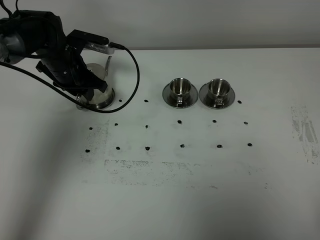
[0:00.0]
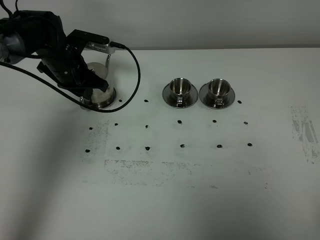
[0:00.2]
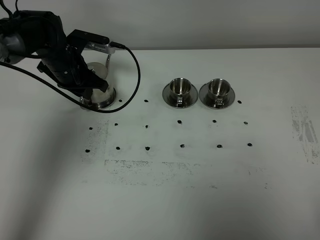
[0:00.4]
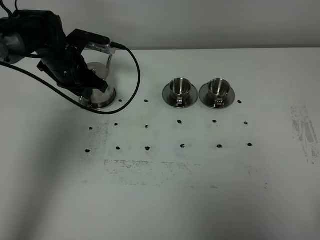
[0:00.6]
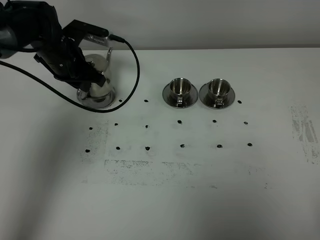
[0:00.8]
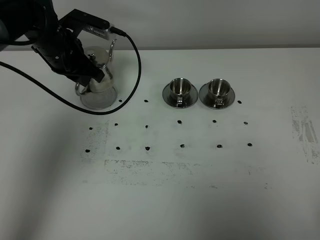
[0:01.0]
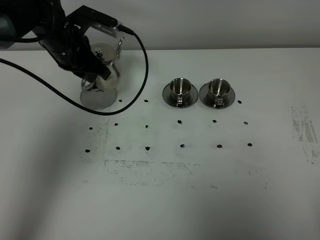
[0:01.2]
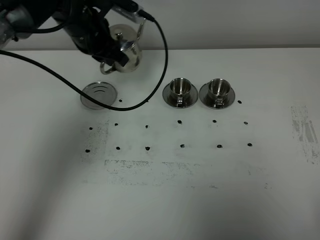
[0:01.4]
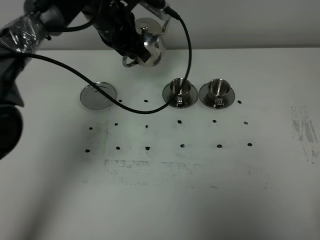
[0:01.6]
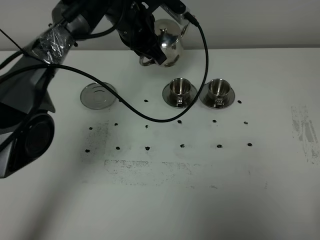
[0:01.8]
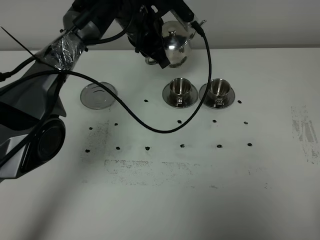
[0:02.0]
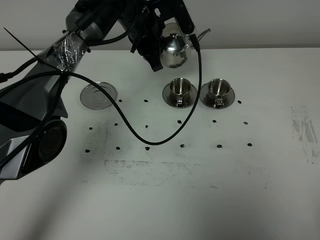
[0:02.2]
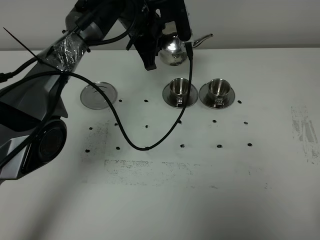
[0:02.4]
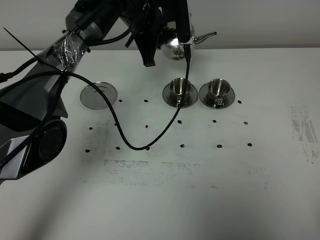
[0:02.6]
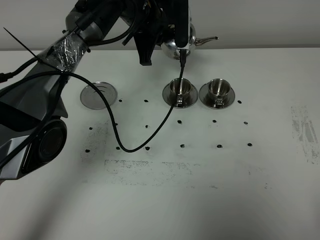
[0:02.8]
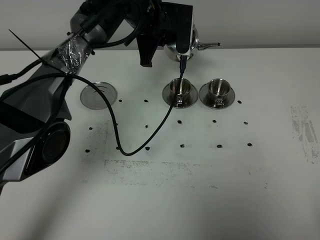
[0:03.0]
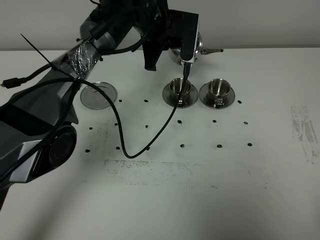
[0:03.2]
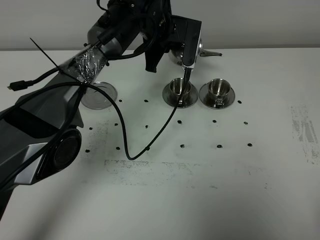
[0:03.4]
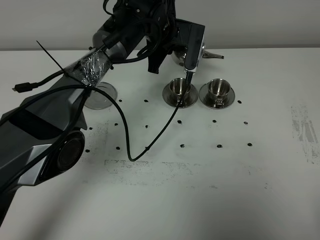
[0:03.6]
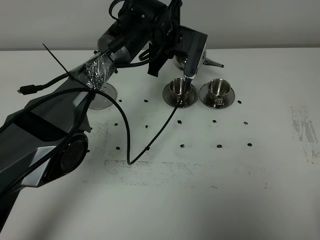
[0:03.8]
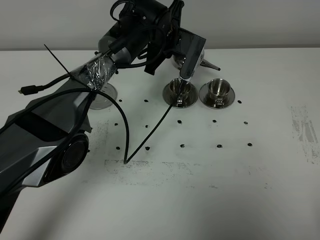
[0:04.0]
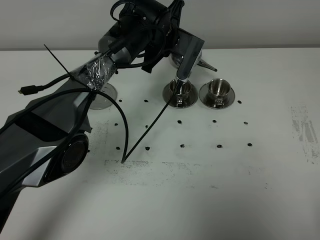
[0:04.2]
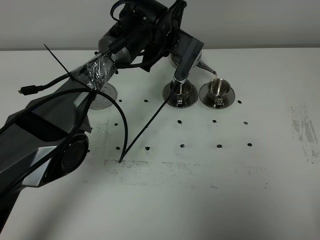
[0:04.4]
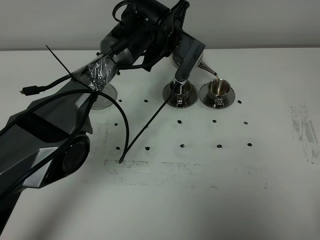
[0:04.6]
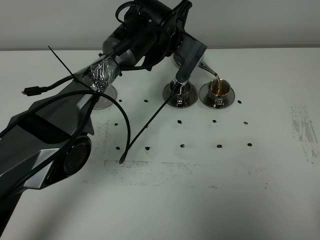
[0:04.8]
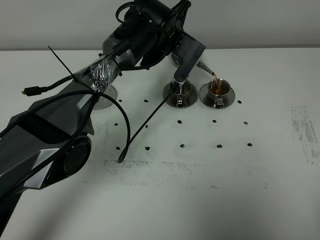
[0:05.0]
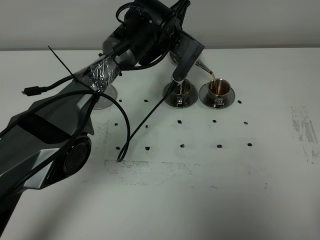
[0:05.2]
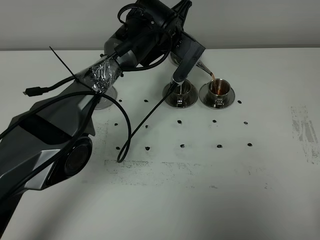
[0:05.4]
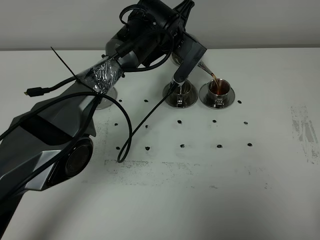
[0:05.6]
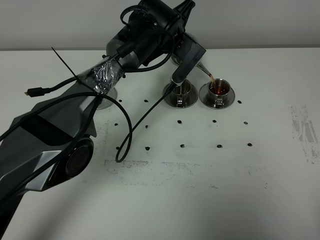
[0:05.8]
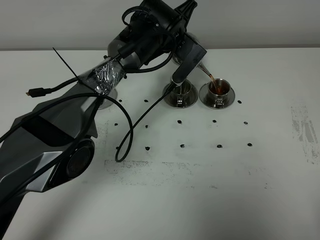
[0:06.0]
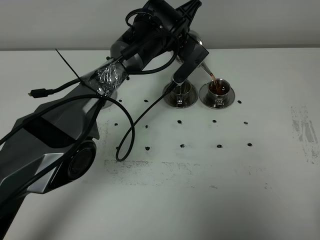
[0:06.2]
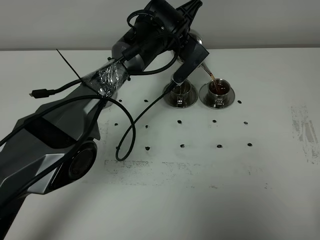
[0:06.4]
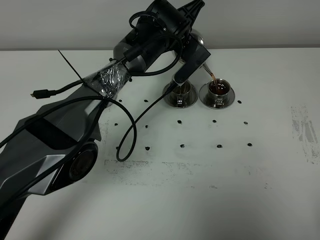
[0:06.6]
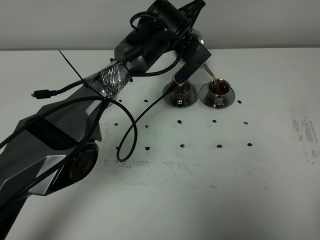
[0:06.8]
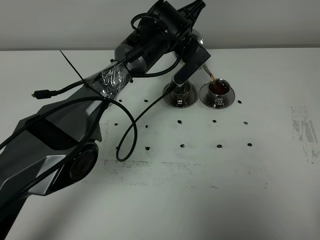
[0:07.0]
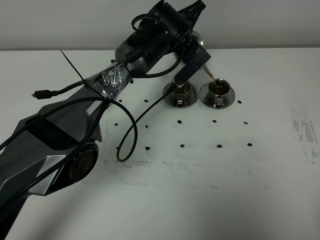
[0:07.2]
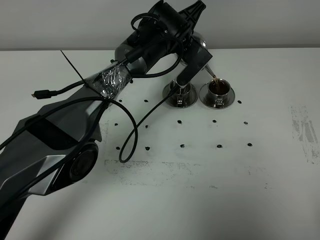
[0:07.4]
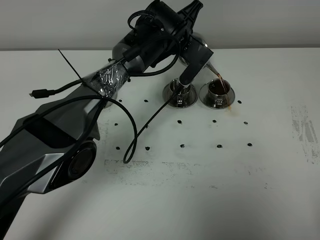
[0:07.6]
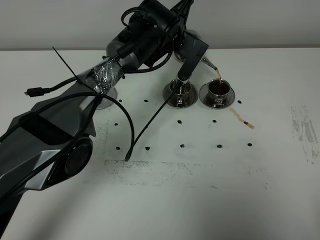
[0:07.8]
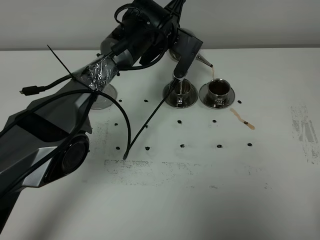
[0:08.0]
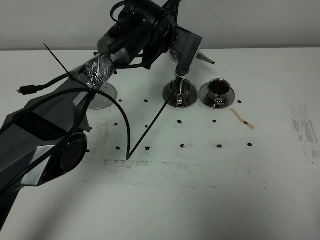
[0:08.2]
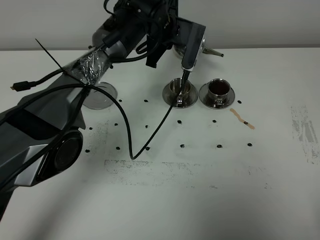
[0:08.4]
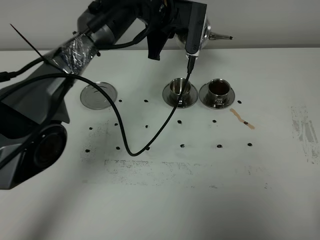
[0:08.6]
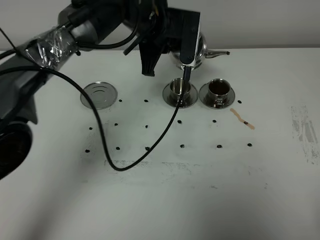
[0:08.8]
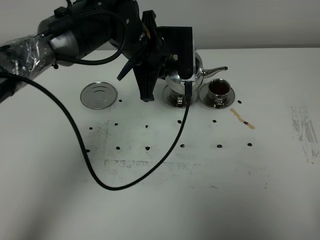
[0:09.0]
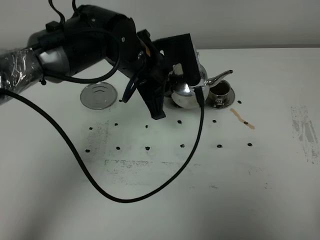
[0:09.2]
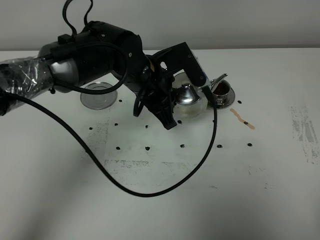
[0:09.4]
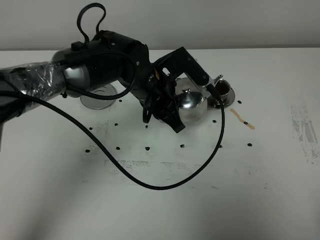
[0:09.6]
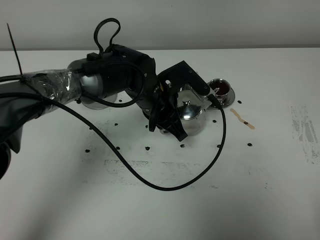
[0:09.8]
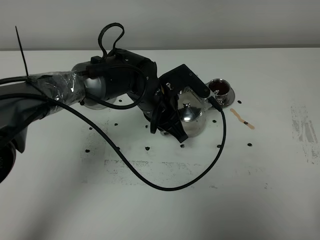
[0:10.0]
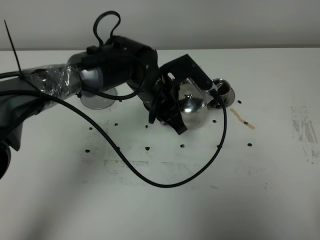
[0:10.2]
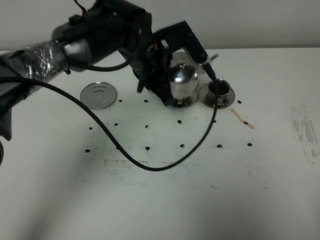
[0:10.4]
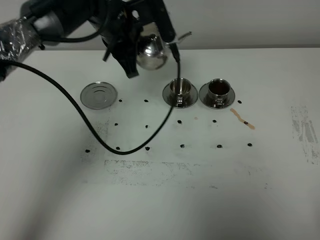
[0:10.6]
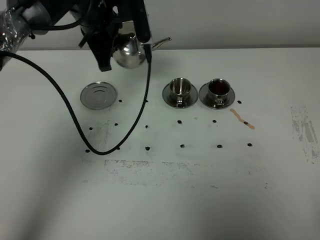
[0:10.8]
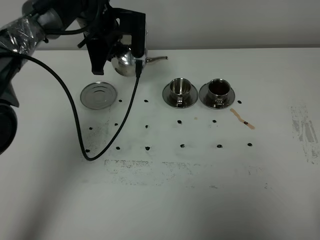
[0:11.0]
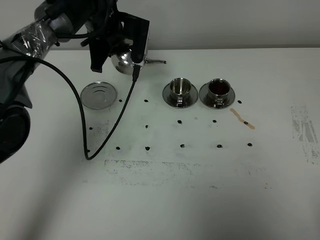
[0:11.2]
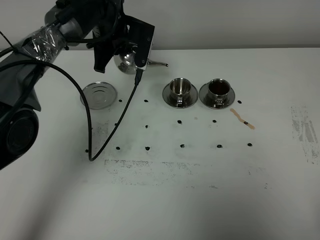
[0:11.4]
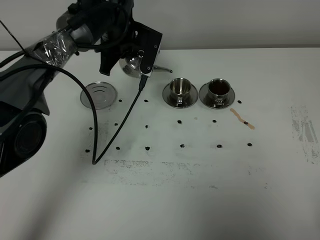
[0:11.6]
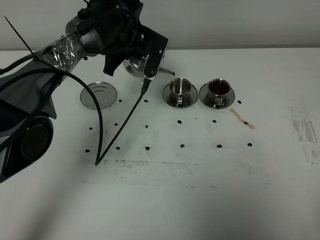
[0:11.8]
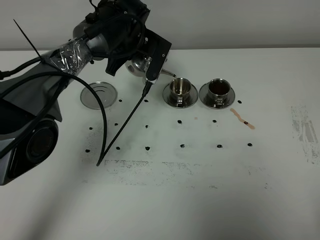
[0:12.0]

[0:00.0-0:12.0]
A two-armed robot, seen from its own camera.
Task of the whole recording: grasp the stainless steel teapot and pour the tea into the two stainless steel teacups one by one, put the stainless steel teapot back in its original place.
0:00.0 to 0:01.6: The left gripper is displaced to the right and upward by some 15 cm.
0:01.6 to 0:03.0: The left gripper heads to the right, covering roughly 5 cm.
0:04.4 to 0:06.0: The grippers move only a little.
0:06.0 to 0:07.6: There are only small adjustments of the grippers.
0:07.6 to 0:09.0: The left gripper travels backward and to the left by some 10 cm.
0:09.0 to 0:10.4: The left gripper moves approximately 10 cm downward and comes back.
0:10.4 to 0:12.0: The left gripper goes some 10 cm forward.

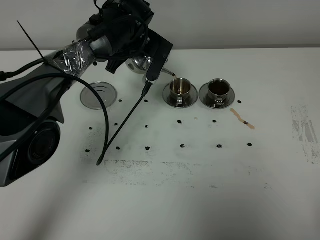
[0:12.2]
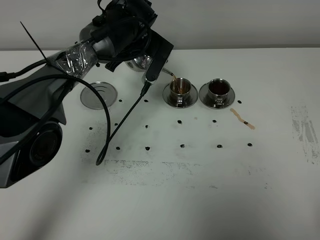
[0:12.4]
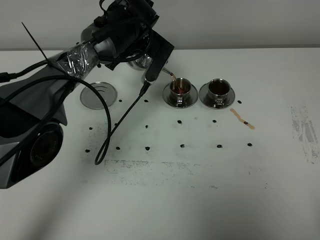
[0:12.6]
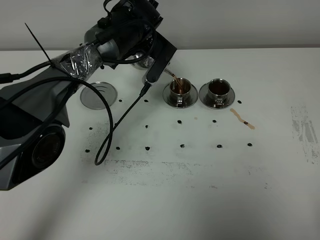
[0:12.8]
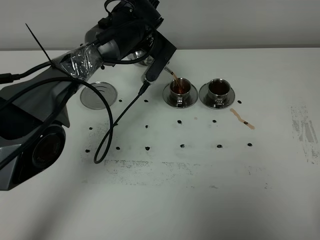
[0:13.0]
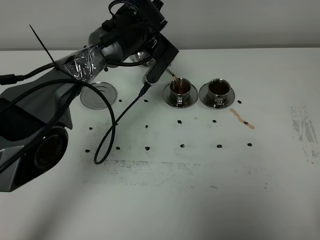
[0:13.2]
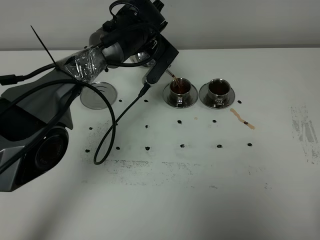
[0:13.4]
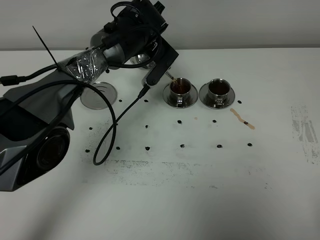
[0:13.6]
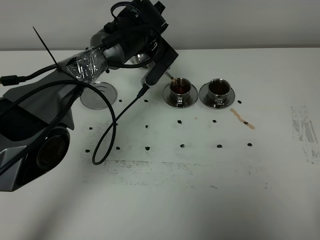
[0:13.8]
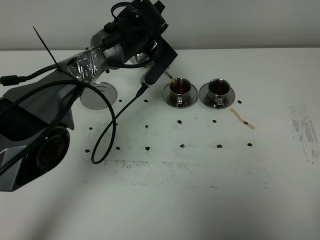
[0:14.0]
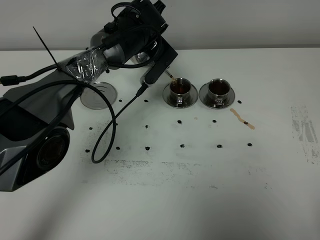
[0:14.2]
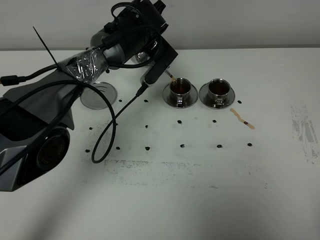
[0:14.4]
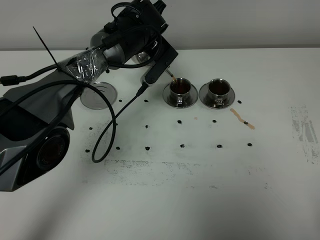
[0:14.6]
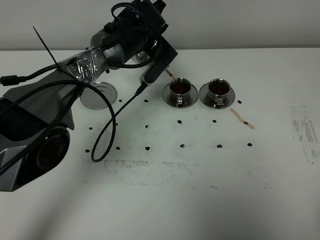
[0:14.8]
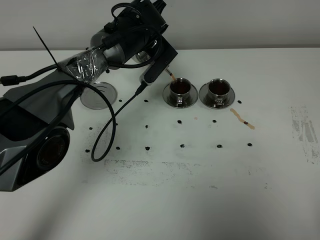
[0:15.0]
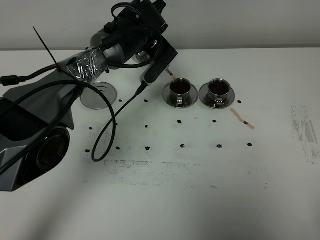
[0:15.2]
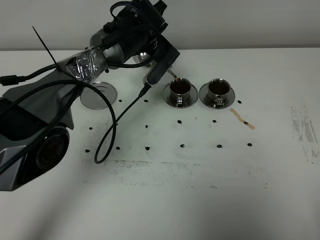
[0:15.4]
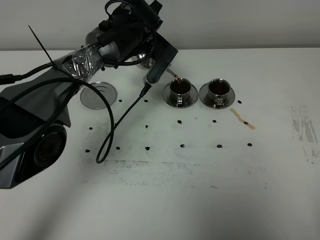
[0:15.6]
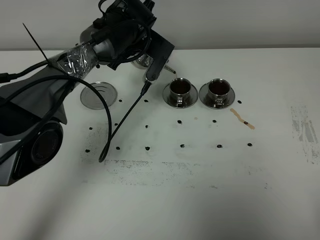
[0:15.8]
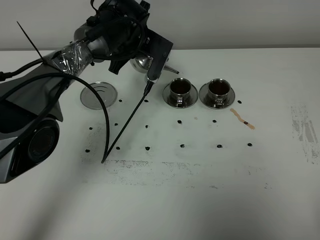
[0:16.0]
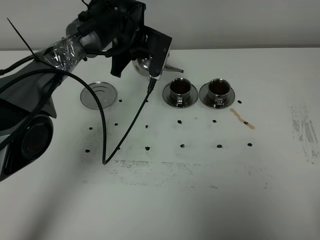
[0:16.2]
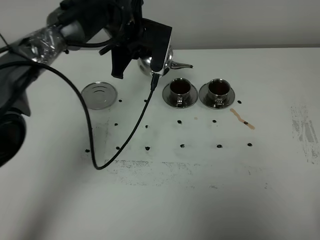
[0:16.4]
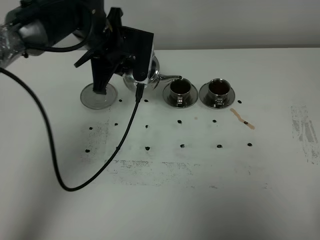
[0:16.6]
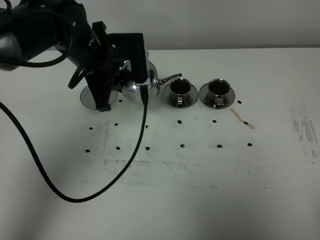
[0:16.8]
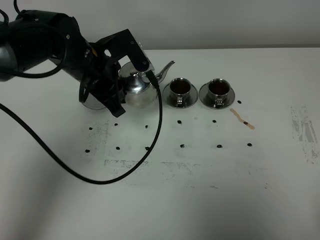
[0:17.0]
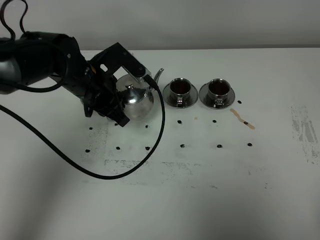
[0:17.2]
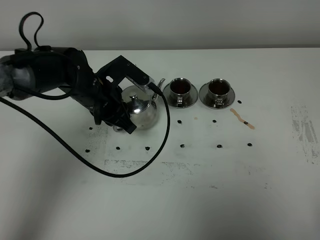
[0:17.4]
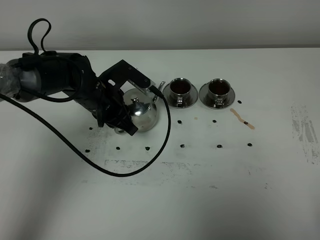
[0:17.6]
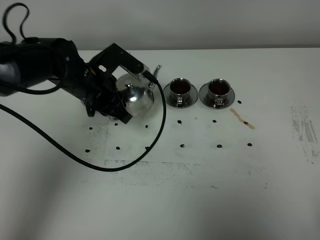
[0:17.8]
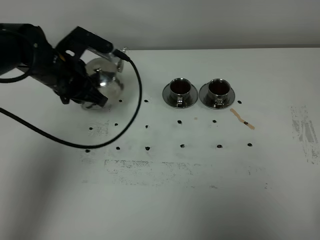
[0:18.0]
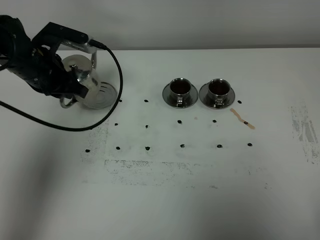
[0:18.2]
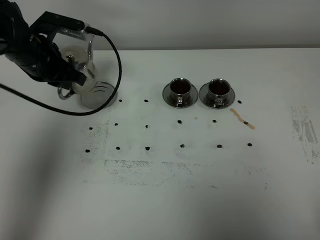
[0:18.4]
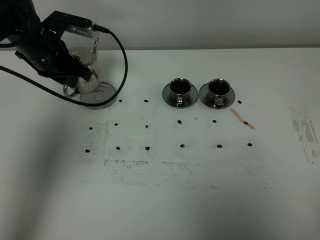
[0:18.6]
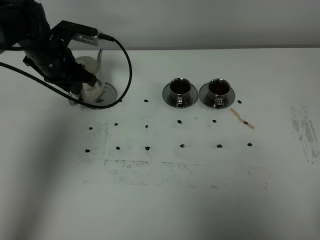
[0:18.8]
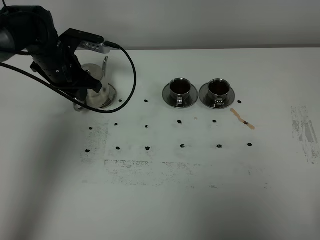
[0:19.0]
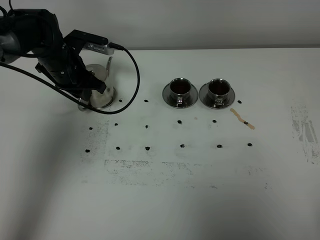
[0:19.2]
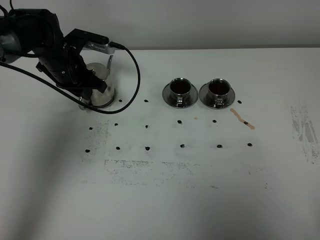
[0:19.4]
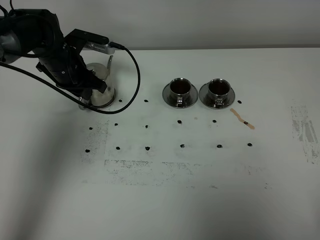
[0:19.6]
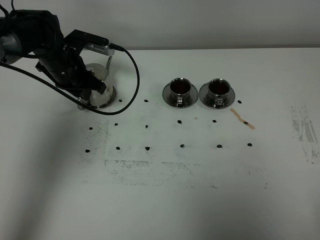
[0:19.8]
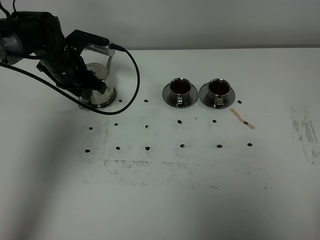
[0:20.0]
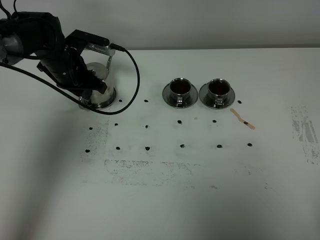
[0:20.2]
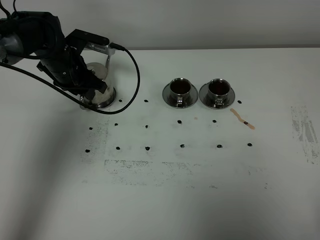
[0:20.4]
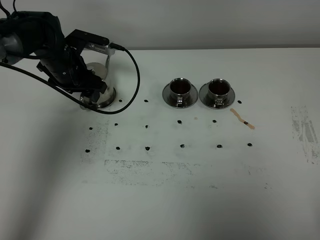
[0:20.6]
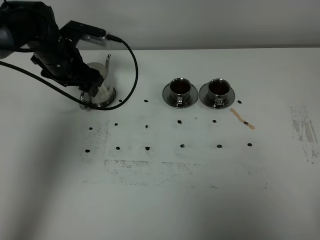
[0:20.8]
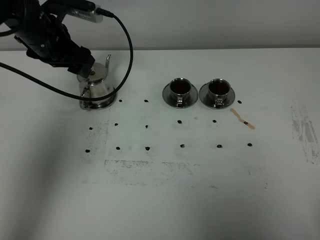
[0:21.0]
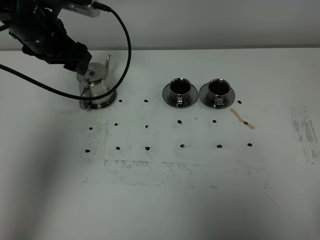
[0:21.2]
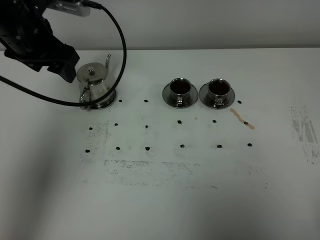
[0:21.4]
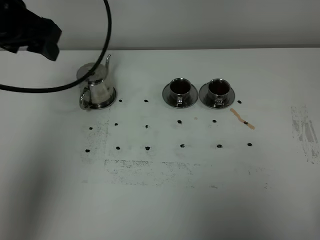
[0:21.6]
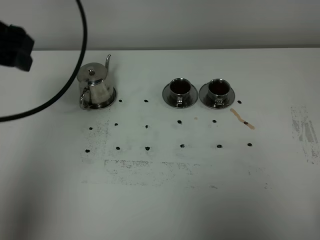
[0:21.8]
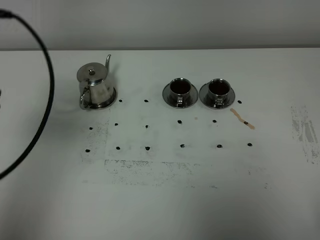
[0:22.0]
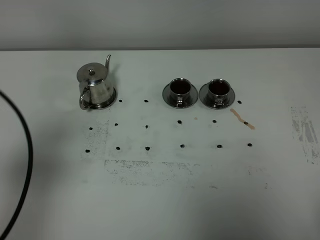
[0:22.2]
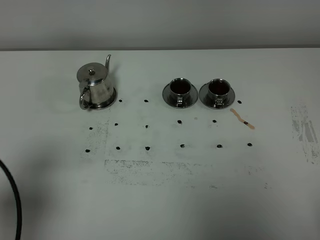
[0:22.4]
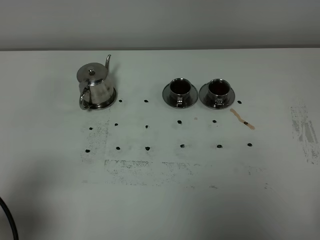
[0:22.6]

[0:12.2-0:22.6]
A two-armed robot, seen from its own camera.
Task of the whole recording: grasp the stainless steel teapot and pour the tea into the two stainless steel teacups one by one, put the stainless steel teapot back in its original place.
Step, 0:12.2 to 0:16.2: Pour tea into the teacup with the left gripper.
0:12.2 to 0:13.6: The grippers move only a little.
0:13.6 to 0:15.2: Neither gripper changes place.
0:15.2 to 0:16.6: The left gripper goes approximately 10 cm backward and to the left.
0:16.6 to 0:18.2: The left gripper moves to the left, roughly 10 cm.
0:18.2 to 0:19.6: The left gripper shifts about 10 cm forward and downward.
0:19.6 to 0:21.2: The left gripper shifts roughly 10 cm upward, and opens up.
0:21.2 to 0:22.6: The left gripper shifts roughly 35 cm backward.
